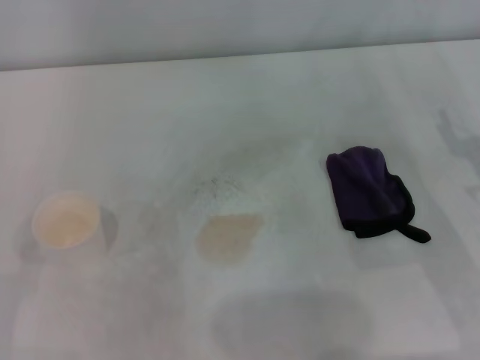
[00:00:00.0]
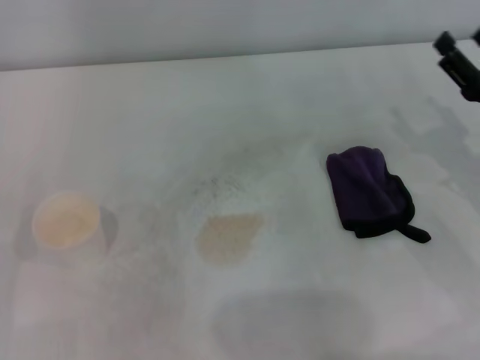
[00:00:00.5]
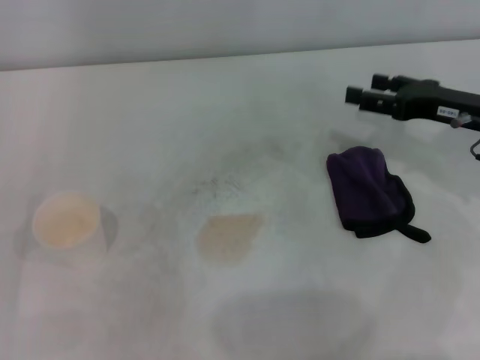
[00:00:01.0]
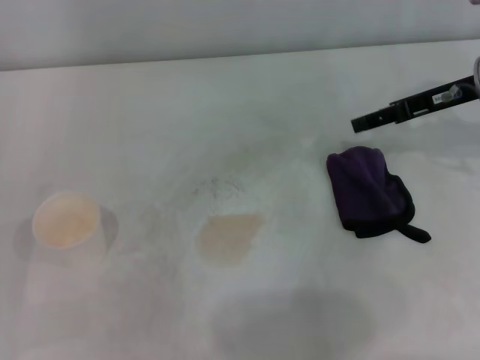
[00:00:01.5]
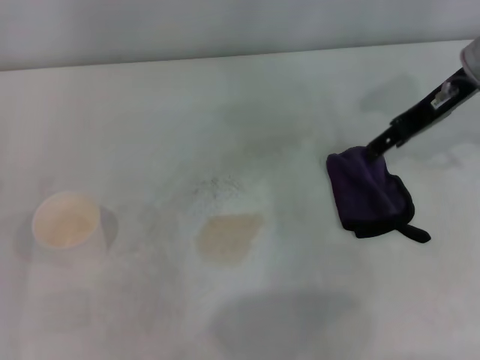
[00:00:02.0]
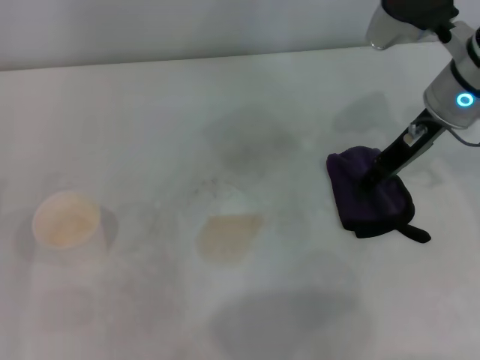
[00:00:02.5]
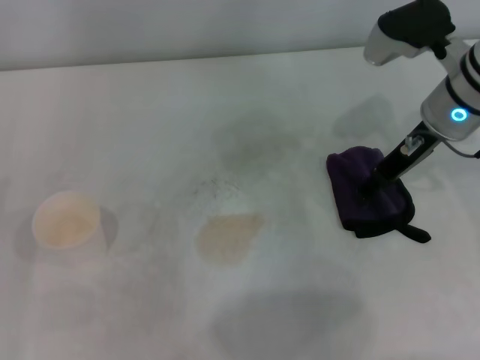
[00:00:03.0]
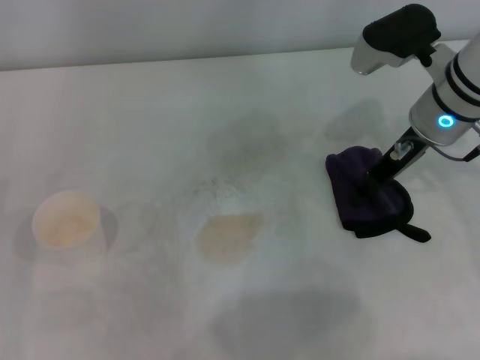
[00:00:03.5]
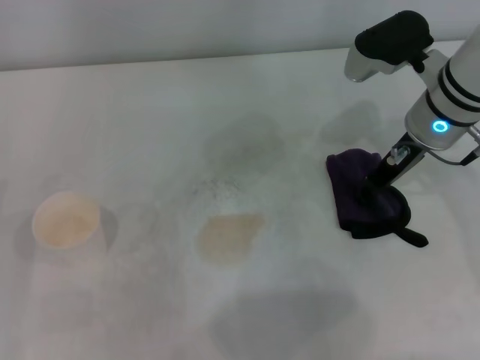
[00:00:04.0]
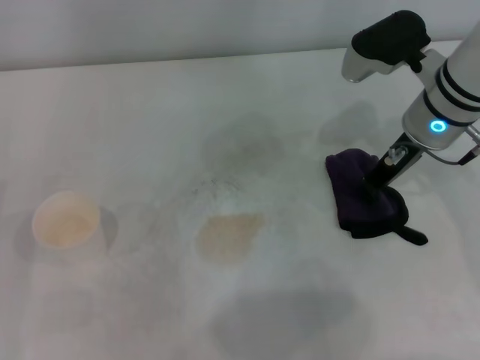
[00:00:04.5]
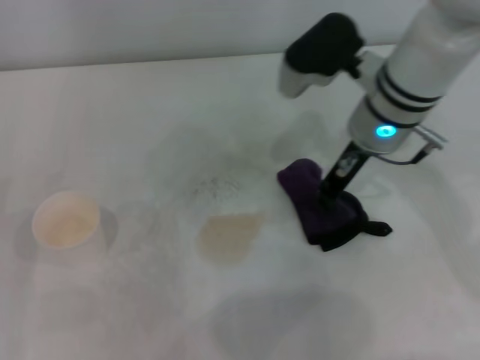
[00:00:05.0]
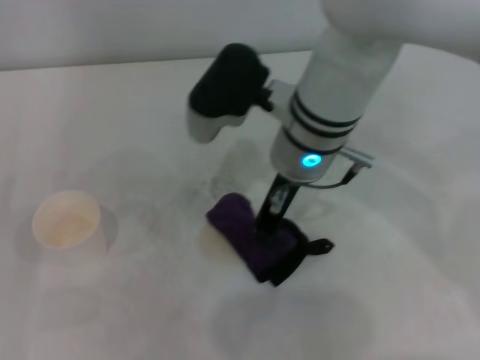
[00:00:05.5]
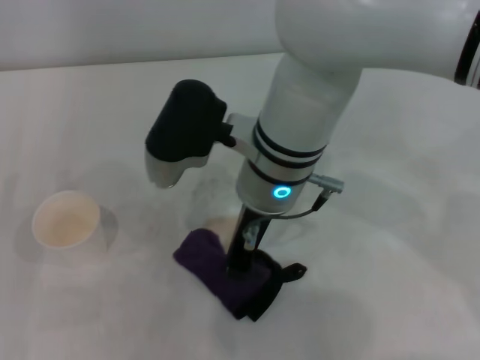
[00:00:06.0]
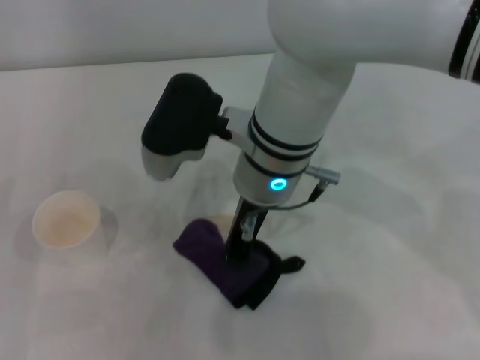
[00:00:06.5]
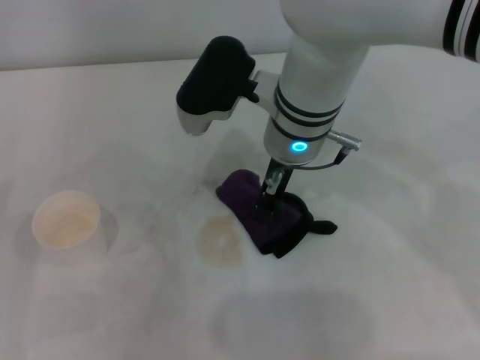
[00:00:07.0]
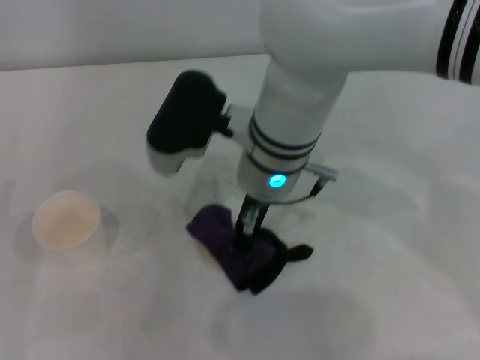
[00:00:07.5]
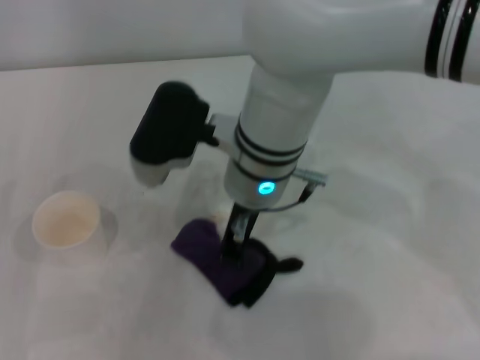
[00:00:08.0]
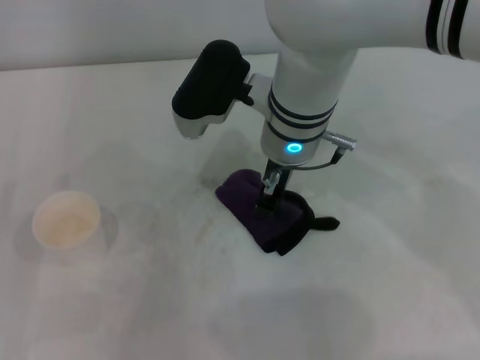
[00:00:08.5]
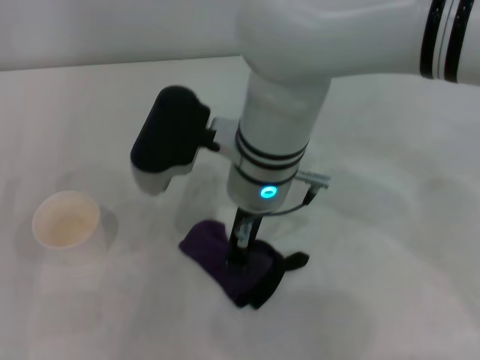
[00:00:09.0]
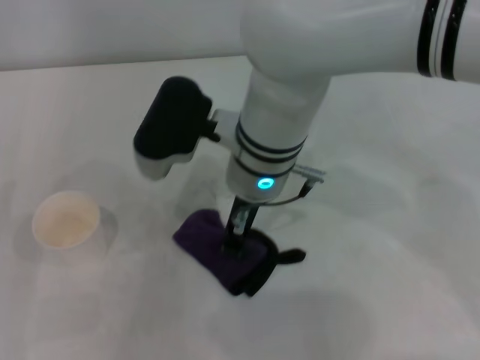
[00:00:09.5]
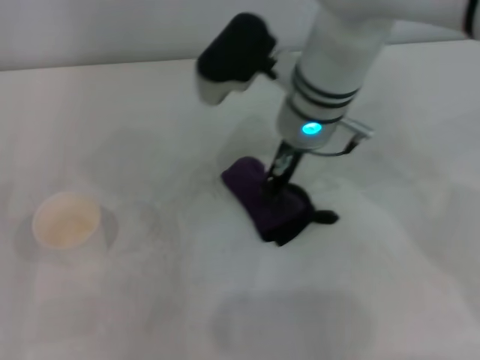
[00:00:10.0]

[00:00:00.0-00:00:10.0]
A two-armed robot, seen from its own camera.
Step, 00:00:00.0 to 00:00:04.0: Grasp the rag with the right gripper.
00:00:00.0 to 00:00:02.0: The right gripper shifts approximately 20 cm forward, upward and to the left.
00:00:02.0 to 00:00:04.0: The right gripper travels downward and to the left by roughly 10 cm, and closes.
00:00:04.0 to 00:00:06.0: The right gripper heads to the left, covering roughly 20 cm, and closes.
00:00:06.0 to 00:00:08.0: The grippers move only a little.
00:00:08.0 to 00:00:10.0: The right gripper shifts roughly 5 cm to the right.

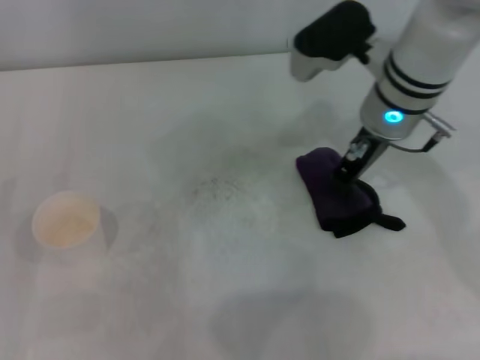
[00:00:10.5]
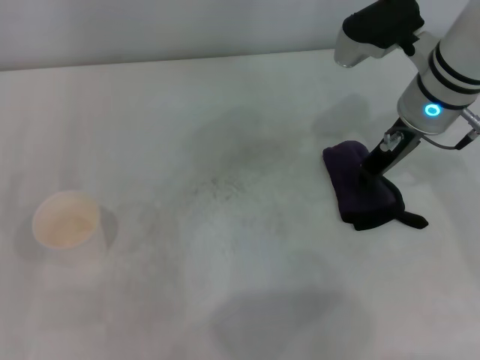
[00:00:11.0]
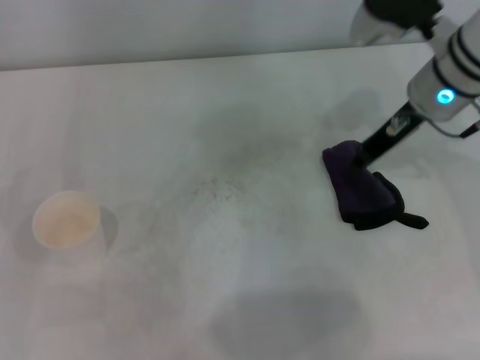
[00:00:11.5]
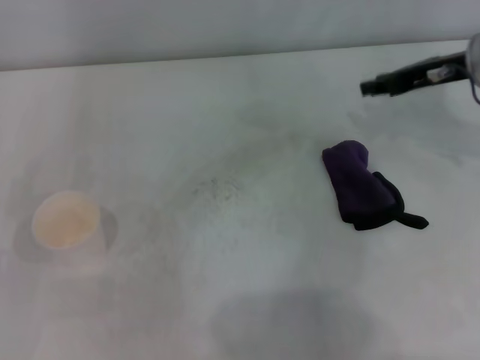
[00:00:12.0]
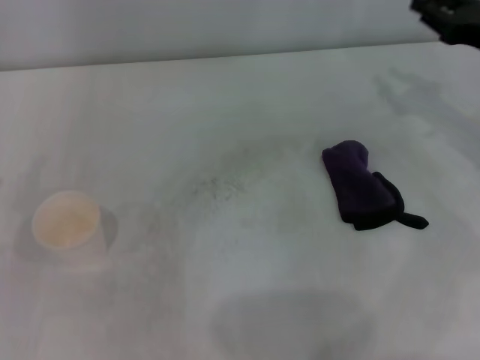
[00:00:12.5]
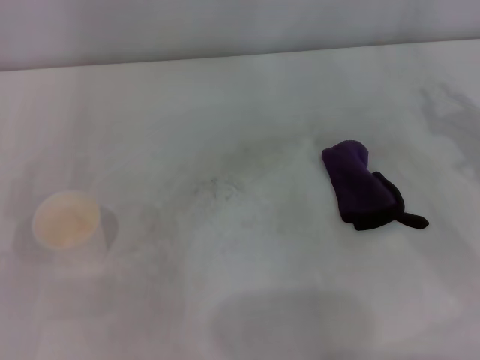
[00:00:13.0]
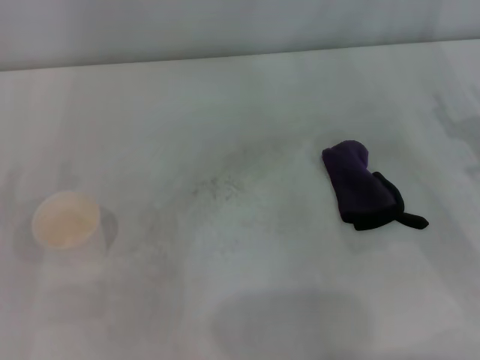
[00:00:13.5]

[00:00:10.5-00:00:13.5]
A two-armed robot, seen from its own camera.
00:00:10.5 to 00:00:12.0: The right gripper moves to the right, approximately 15 cm.
00:00:12.0 to 00:00:13.5: The right gripper is displaced backward, downward and to the right by approximately 15 cm, and opens its fingers.
